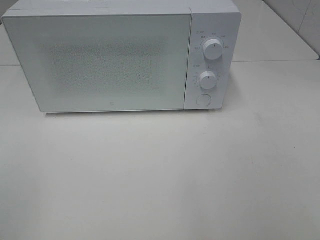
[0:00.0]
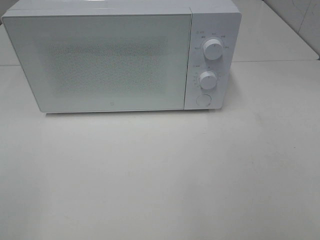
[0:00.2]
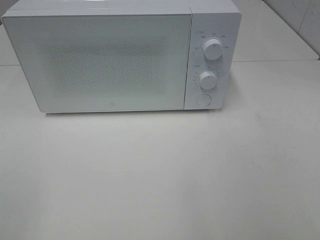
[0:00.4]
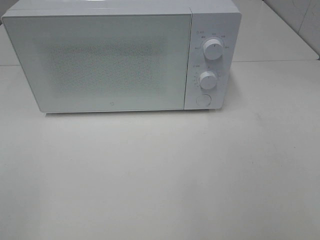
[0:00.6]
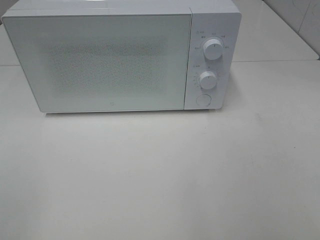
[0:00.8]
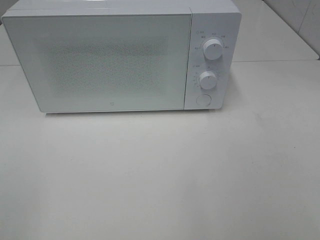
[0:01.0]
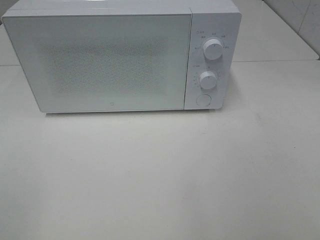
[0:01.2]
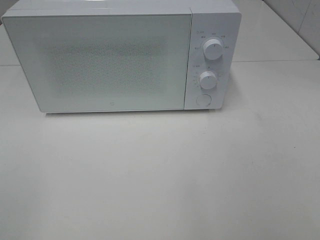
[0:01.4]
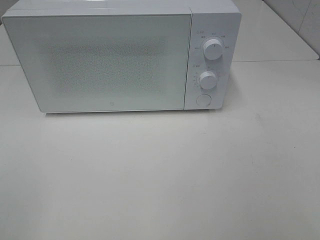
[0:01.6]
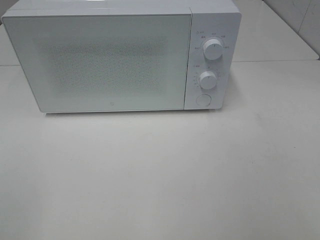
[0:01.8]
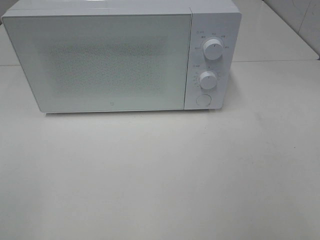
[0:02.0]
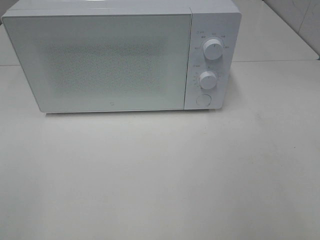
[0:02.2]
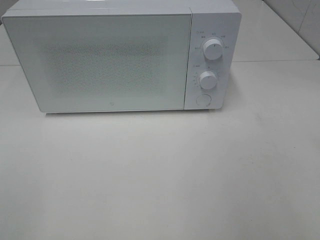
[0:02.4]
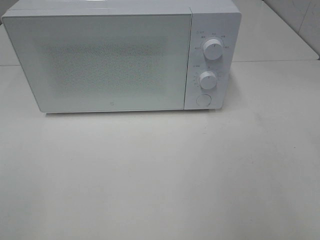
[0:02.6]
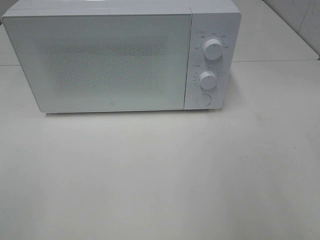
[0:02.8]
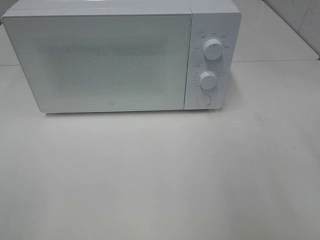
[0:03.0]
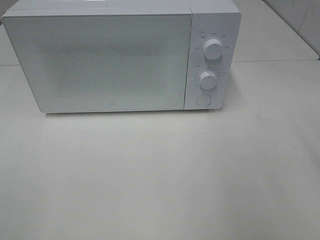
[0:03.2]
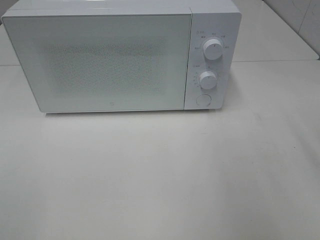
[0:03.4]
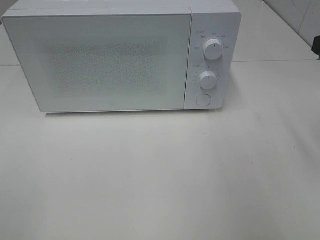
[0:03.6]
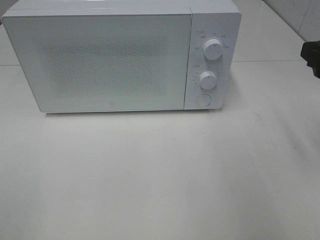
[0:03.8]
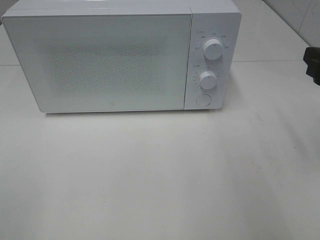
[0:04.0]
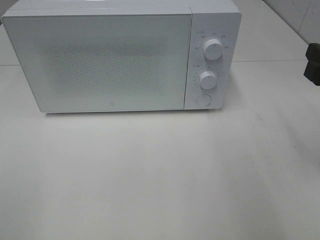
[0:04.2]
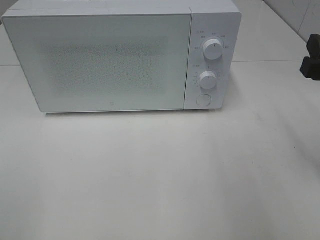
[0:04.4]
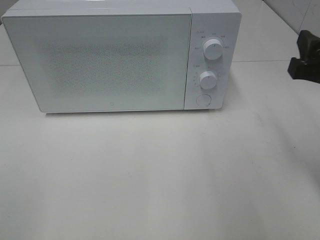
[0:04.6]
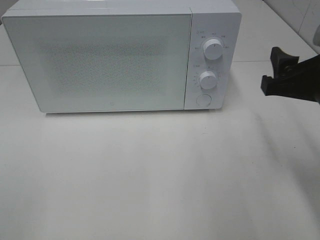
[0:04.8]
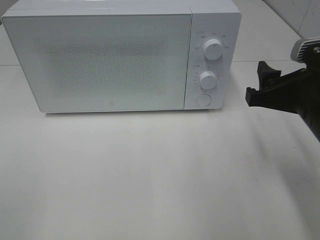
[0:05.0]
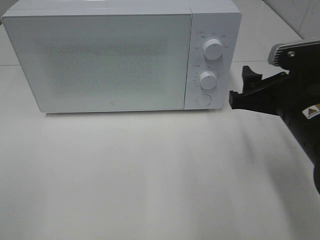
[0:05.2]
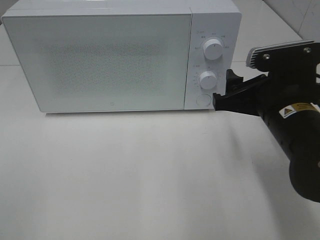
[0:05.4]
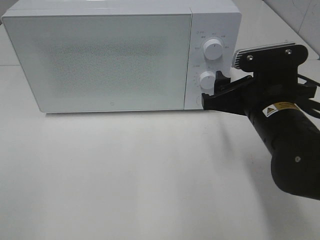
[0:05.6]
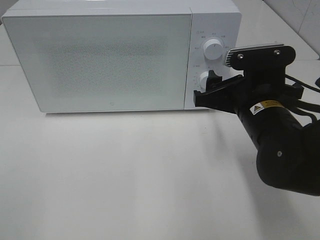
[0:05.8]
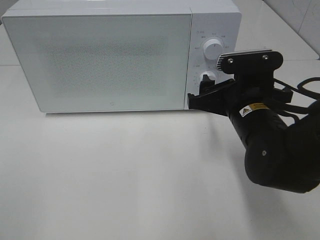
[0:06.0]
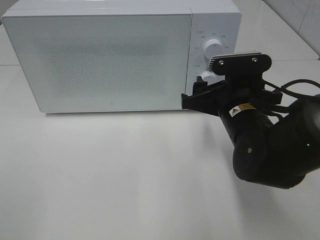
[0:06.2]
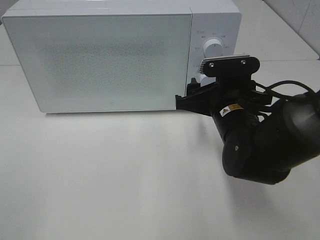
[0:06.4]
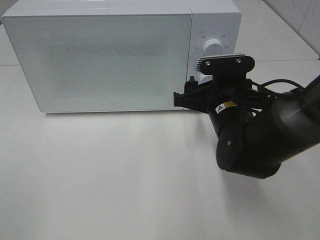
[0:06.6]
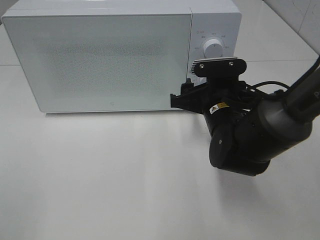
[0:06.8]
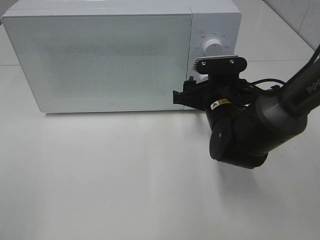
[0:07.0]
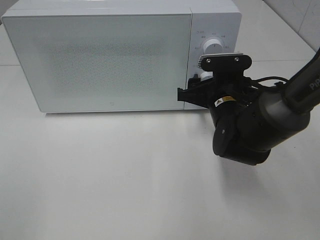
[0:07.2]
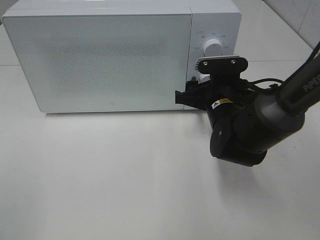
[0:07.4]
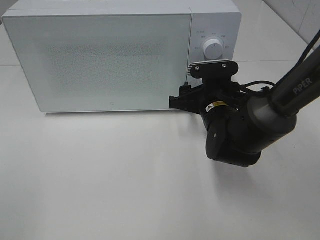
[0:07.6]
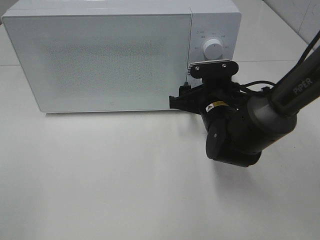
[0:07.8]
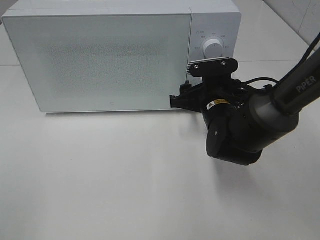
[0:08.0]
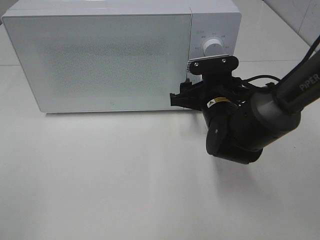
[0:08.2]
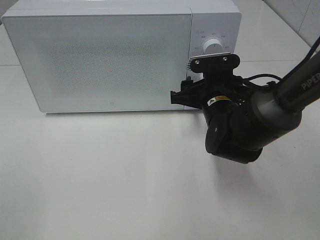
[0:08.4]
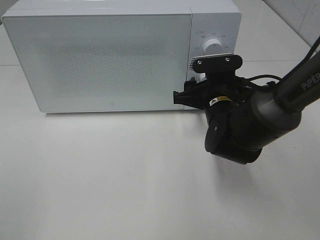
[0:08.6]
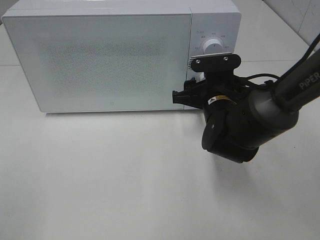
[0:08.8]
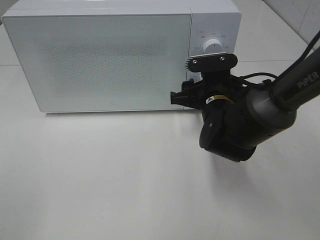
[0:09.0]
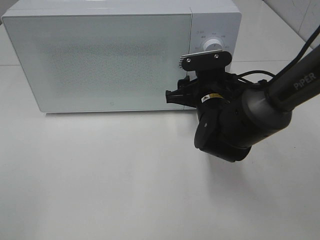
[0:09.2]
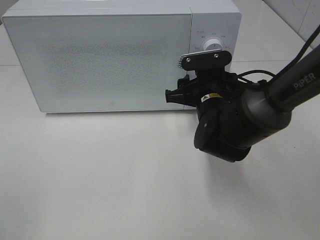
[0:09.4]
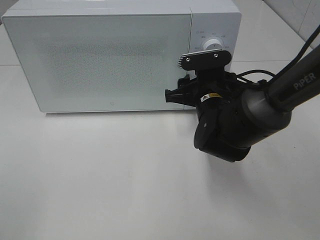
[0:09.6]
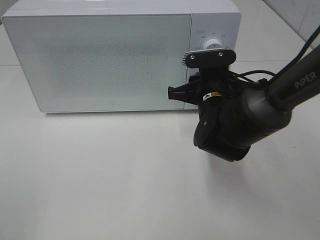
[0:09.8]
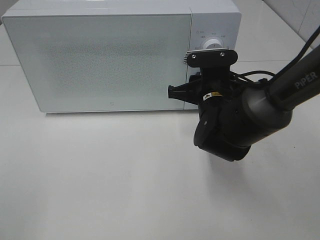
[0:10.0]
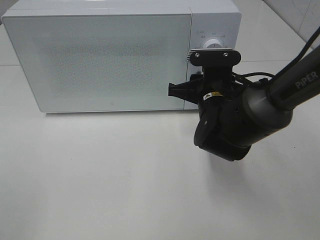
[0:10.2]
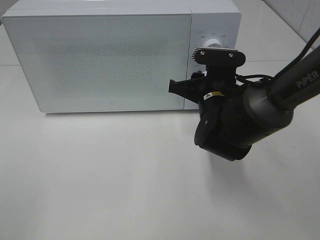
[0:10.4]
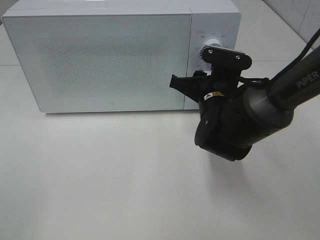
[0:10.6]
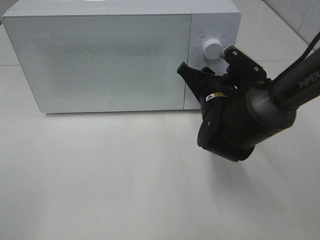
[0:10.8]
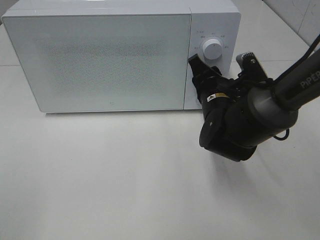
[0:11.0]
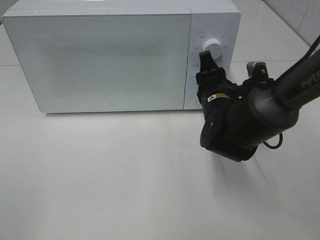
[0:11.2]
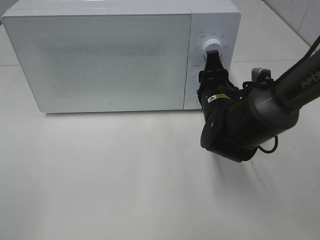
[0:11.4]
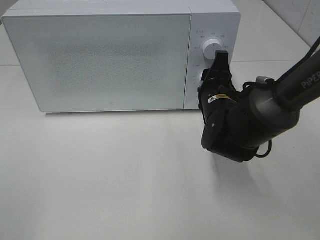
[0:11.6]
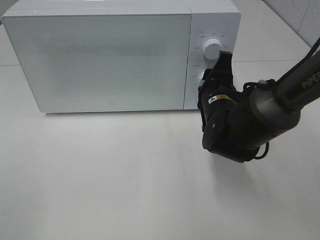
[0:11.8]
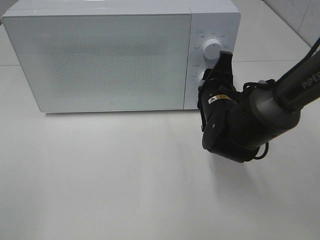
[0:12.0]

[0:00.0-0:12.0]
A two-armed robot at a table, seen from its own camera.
Task of the whole recording: Heat the burger.
0:03.0 to 0:04.4: The right gripper heads downward and forward, covering approximately 10 cm.
0:04.4 to 0:06.0: The right gripper goes approximately 15 cm to the left, downward and forward.
0:06.0 to 0:07.6: The right gripper heads forward and downward, covering roughly 10 cm.
0:07.6 to 0:10.4: The grippers move only a little.

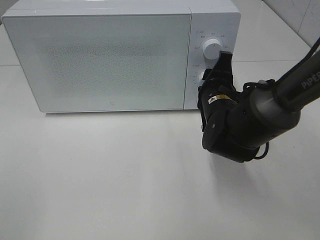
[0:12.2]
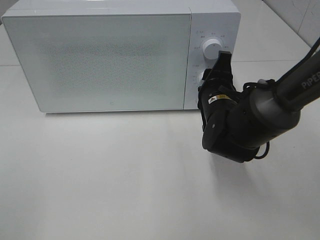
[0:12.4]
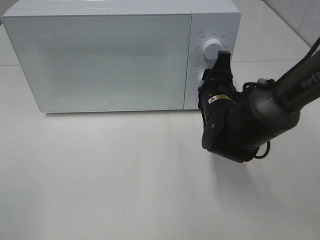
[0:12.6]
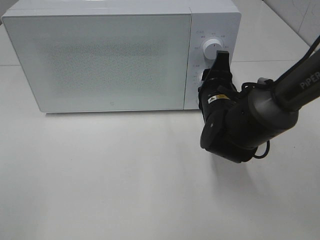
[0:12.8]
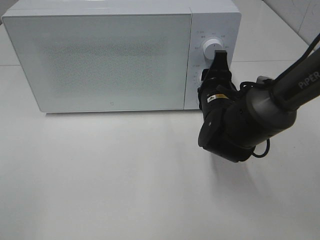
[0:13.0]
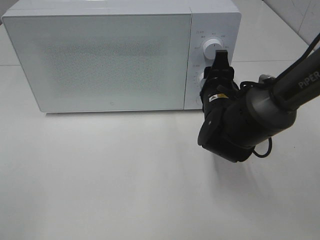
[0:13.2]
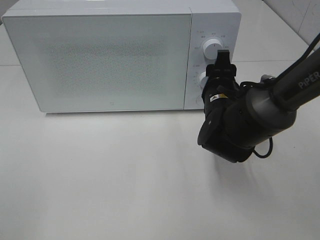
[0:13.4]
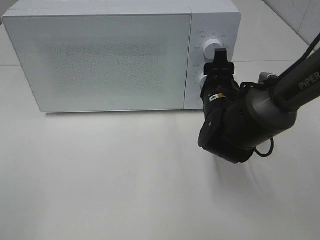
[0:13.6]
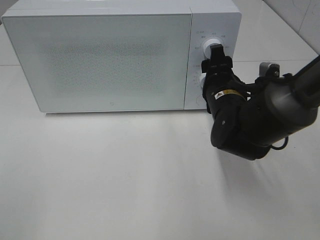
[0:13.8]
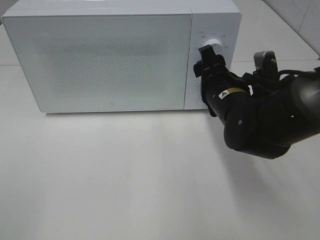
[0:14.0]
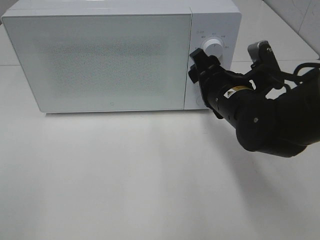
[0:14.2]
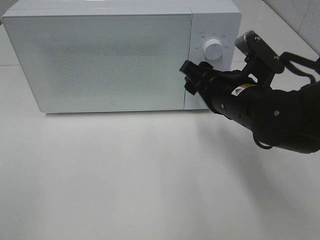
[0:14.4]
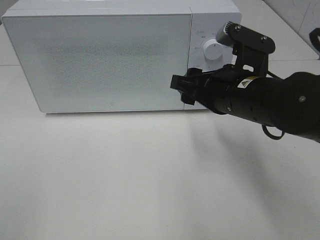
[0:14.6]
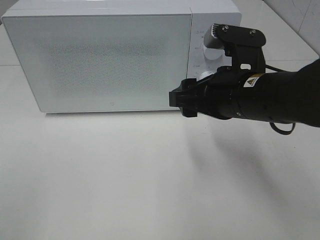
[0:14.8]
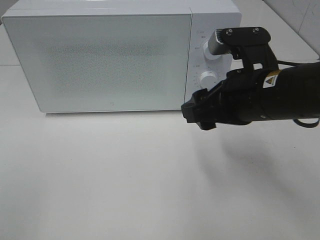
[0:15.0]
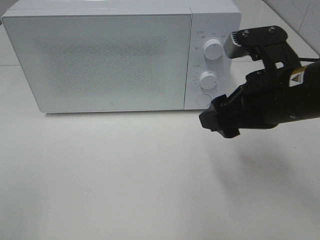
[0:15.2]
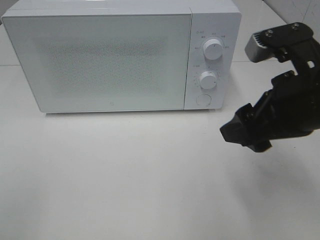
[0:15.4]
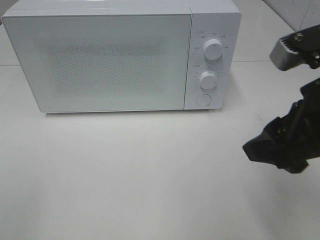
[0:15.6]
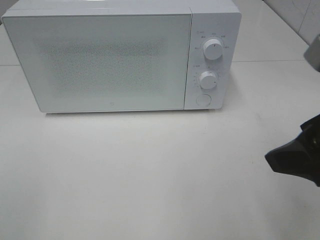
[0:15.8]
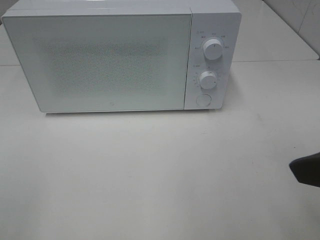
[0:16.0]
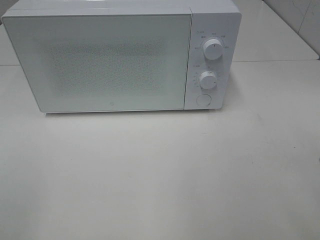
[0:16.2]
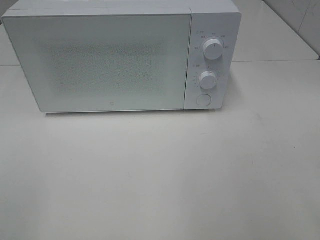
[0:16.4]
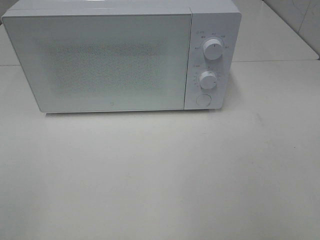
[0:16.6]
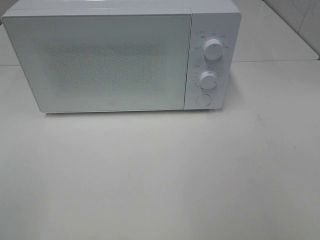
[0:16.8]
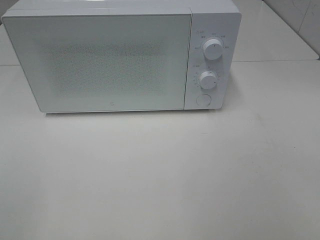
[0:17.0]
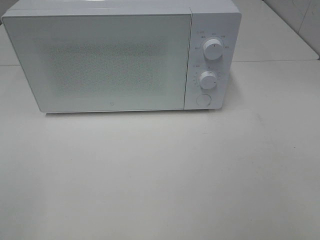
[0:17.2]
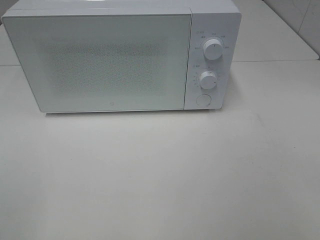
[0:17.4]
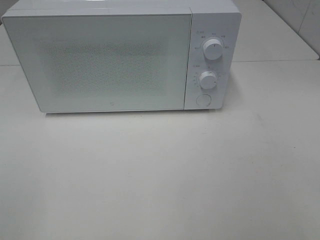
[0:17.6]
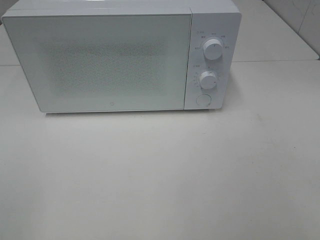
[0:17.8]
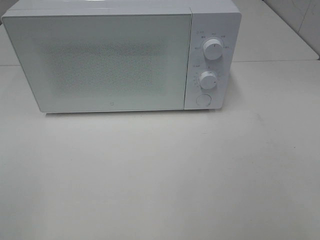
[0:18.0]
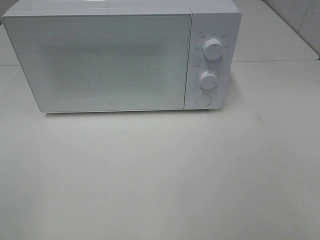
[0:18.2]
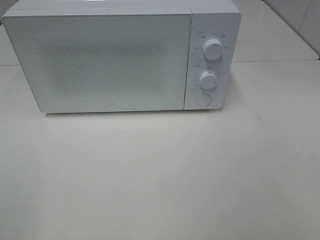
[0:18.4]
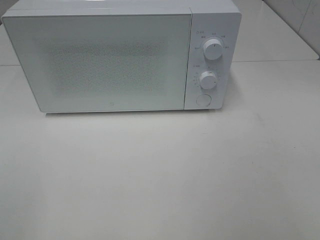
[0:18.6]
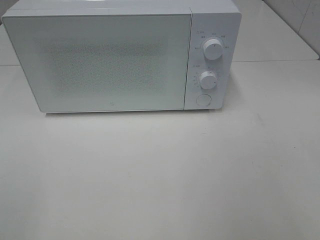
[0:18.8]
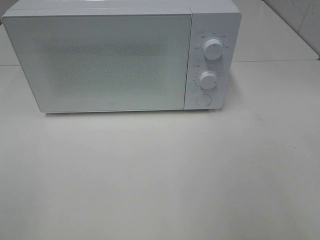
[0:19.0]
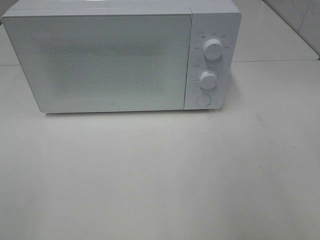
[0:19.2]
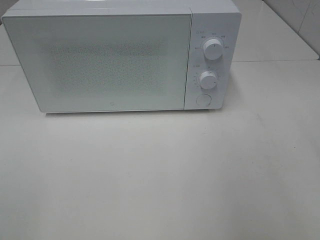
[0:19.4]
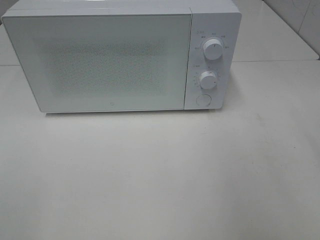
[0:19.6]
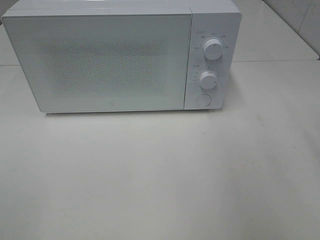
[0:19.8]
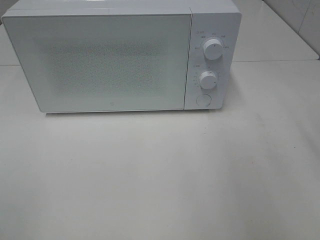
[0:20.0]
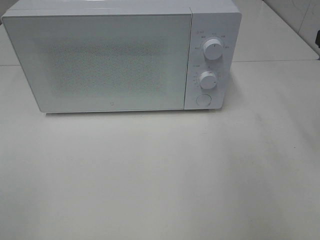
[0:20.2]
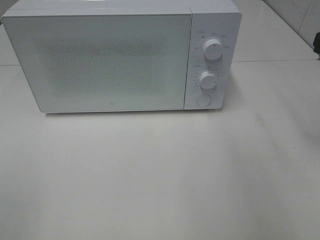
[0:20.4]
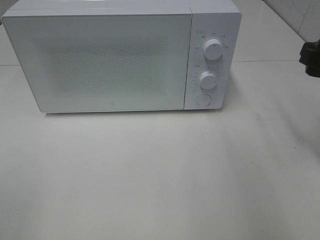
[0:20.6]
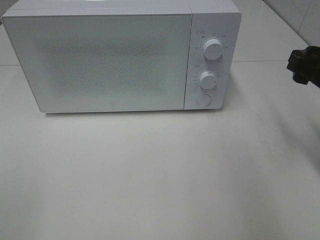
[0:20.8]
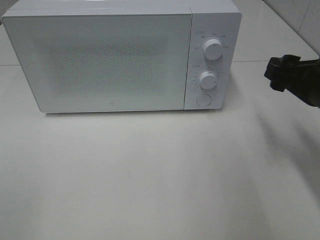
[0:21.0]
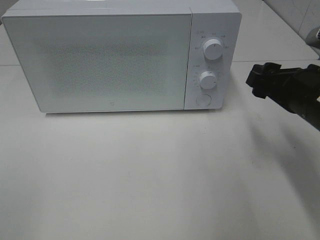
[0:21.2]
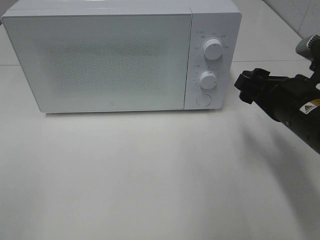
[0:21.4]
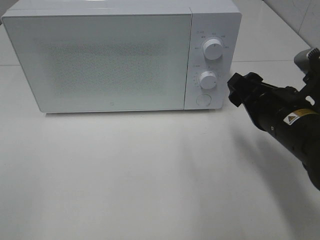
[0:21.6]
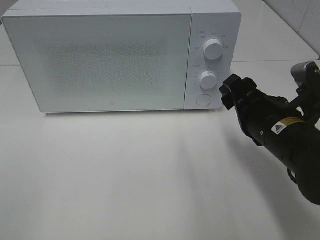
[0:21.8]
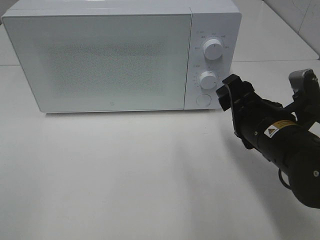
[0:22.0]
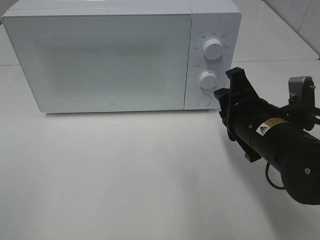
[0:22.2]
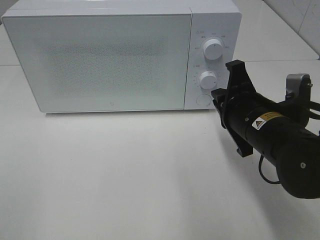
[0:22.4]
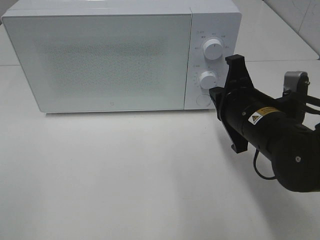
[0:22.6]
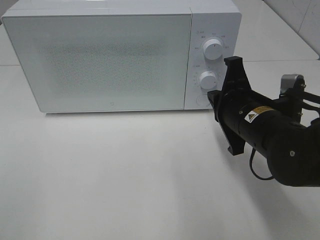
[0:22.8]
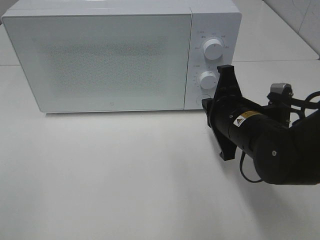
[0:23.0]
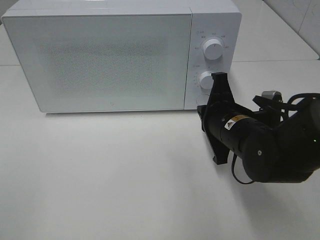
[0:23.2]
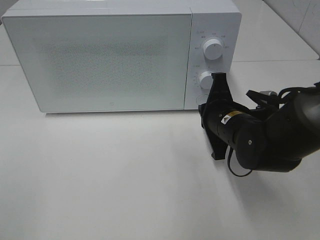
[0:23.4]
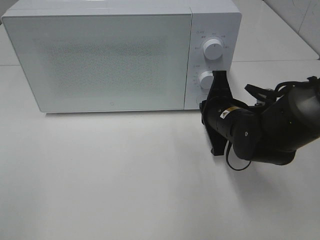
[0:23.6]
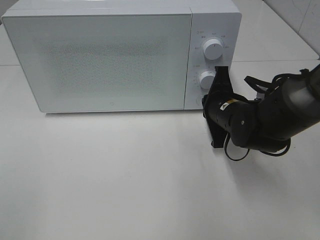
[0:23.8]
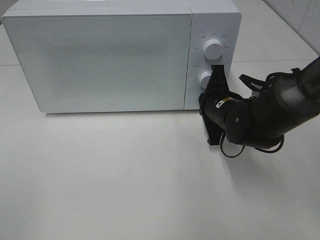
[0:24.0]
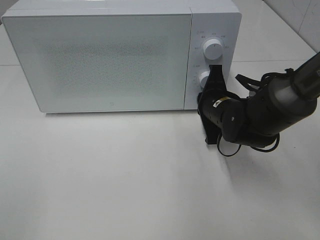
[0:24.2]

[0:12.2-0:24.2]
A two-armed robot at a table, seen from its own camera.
Task of the whole recording: Heat the burger.
0:12.2 to 0:13.8: The grippers move only a little.
0:13.8 to 0:15.2: The right gripper goes roughly 15 cm backward and upward.
0:15.2 to 0:16.6: The right gripper moves backward, to the right and upward, about 25 cm.
0:19.8 to 0:21.2: The right gripper shifts roughly 15 cm downward and to the left.
0:21.2 to 0:22.6: The right gripper shifts about 10 cm to the left, and closes.
0:22.6 to 0:24.2: The right gripper is displaced forward and downward by approximately 10 cm.
